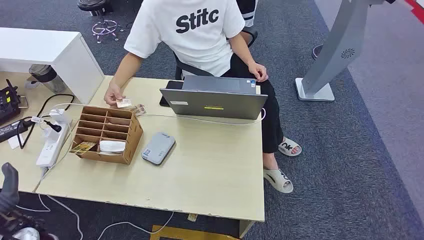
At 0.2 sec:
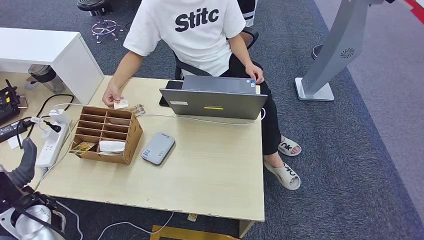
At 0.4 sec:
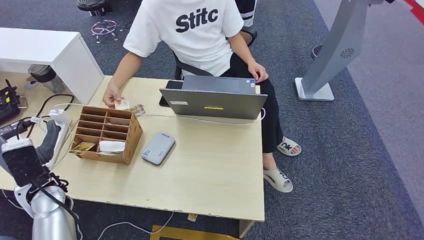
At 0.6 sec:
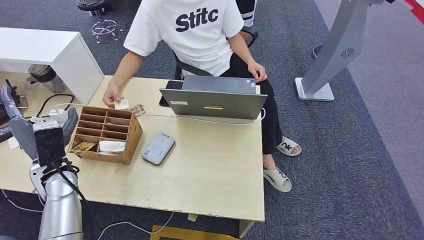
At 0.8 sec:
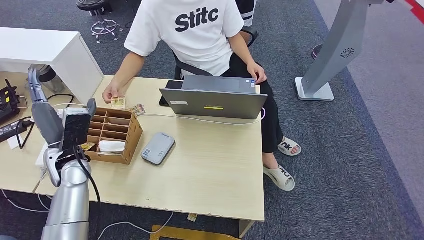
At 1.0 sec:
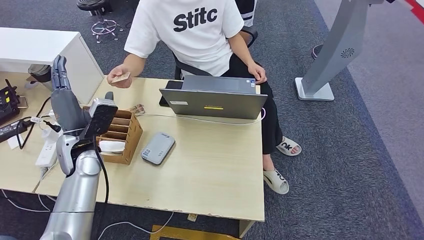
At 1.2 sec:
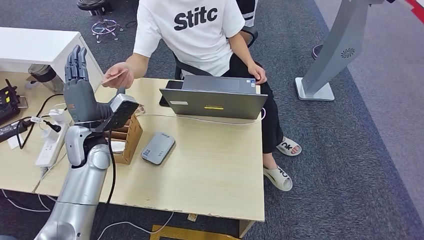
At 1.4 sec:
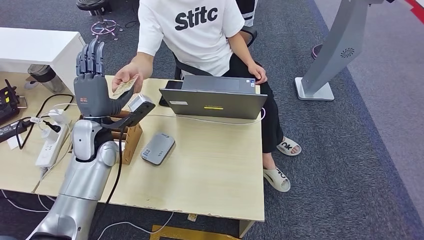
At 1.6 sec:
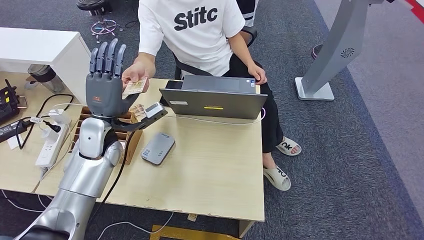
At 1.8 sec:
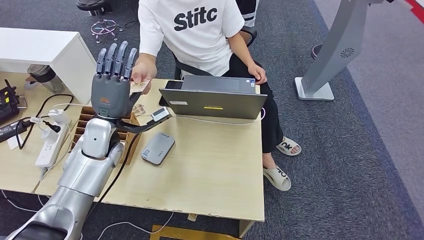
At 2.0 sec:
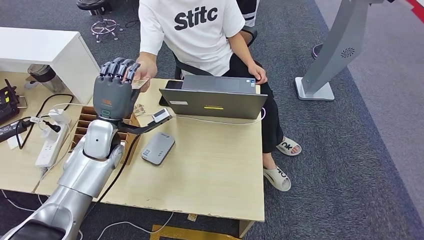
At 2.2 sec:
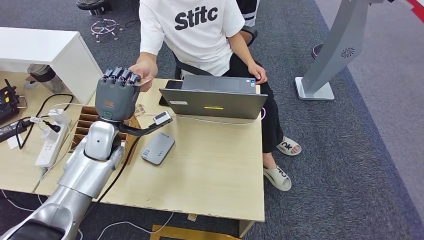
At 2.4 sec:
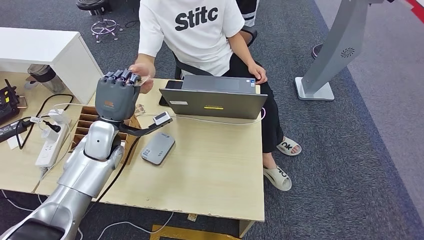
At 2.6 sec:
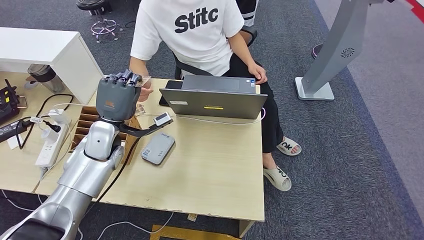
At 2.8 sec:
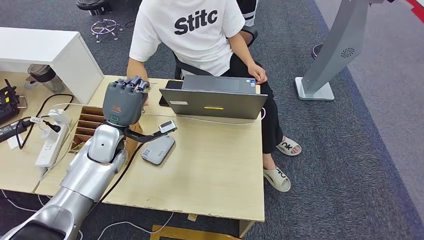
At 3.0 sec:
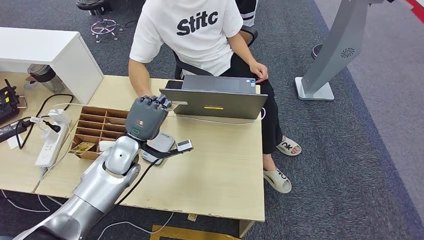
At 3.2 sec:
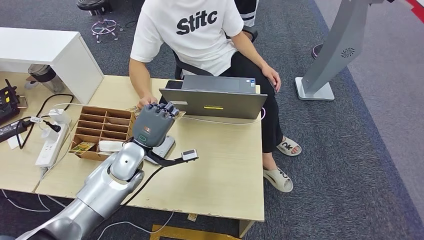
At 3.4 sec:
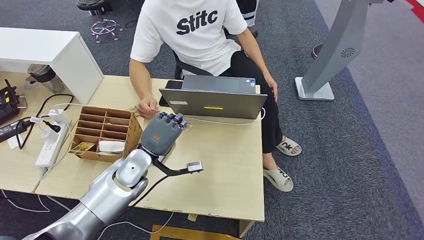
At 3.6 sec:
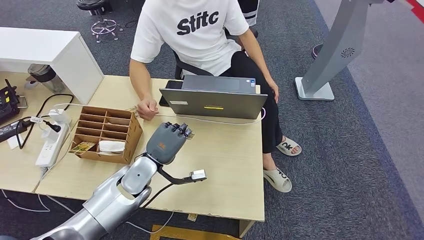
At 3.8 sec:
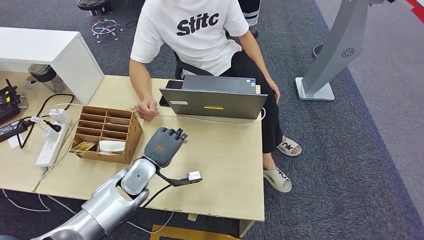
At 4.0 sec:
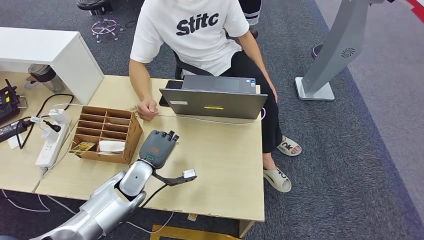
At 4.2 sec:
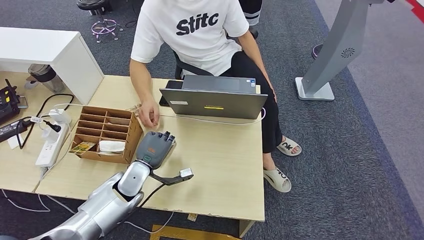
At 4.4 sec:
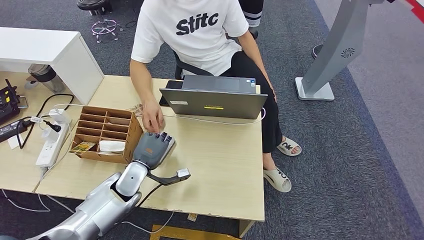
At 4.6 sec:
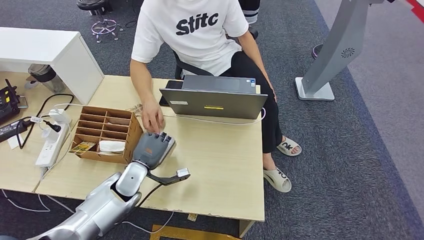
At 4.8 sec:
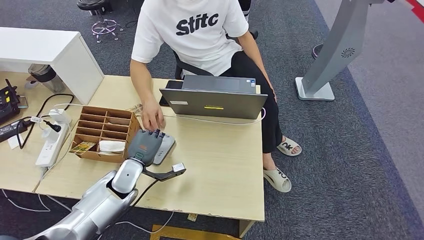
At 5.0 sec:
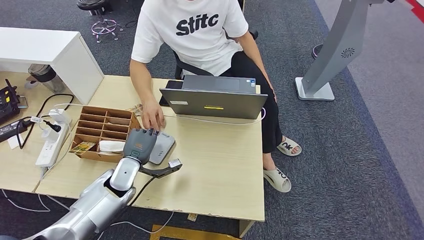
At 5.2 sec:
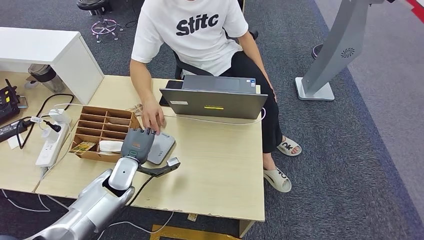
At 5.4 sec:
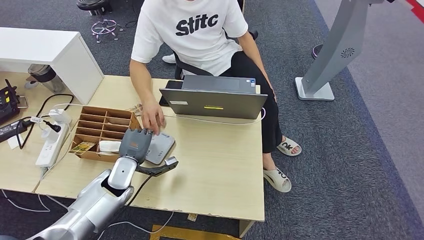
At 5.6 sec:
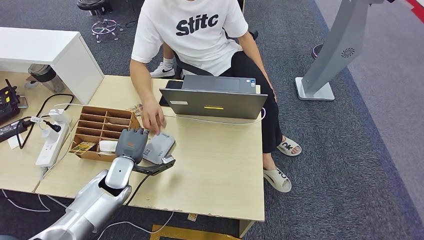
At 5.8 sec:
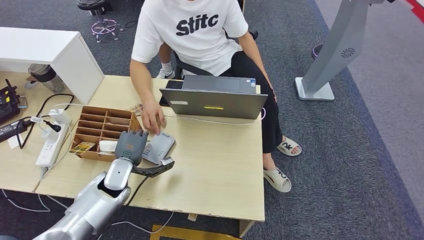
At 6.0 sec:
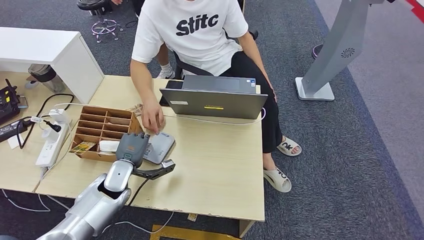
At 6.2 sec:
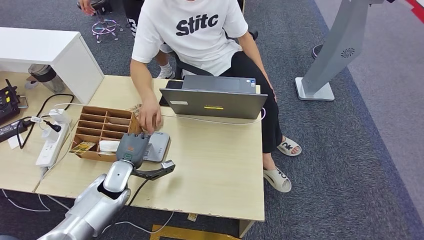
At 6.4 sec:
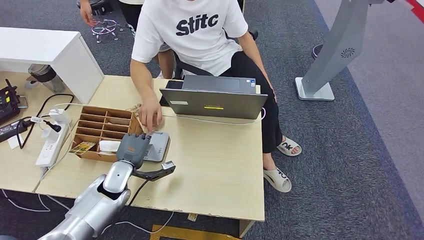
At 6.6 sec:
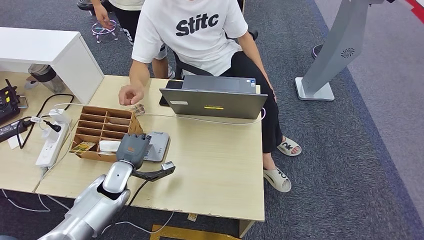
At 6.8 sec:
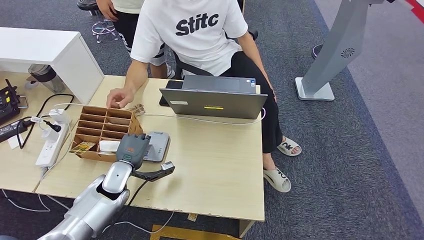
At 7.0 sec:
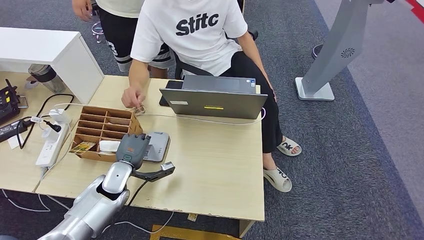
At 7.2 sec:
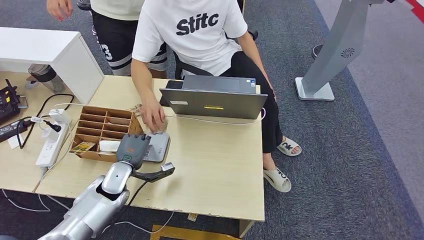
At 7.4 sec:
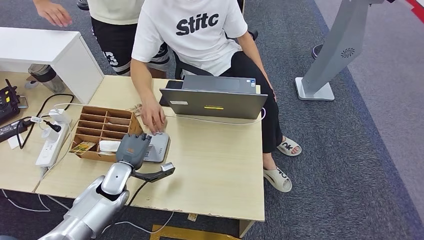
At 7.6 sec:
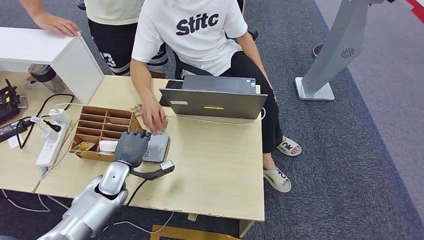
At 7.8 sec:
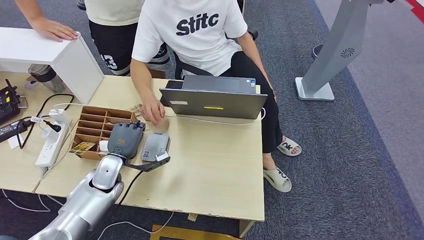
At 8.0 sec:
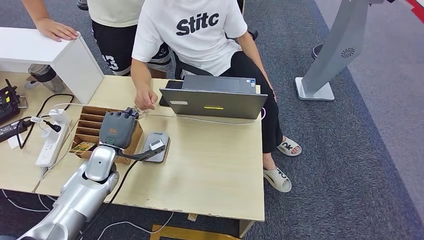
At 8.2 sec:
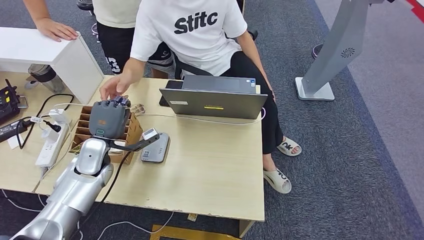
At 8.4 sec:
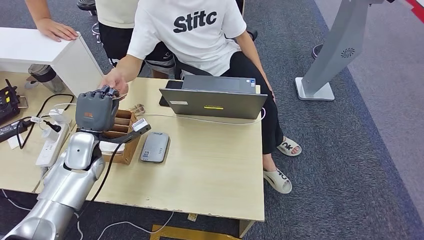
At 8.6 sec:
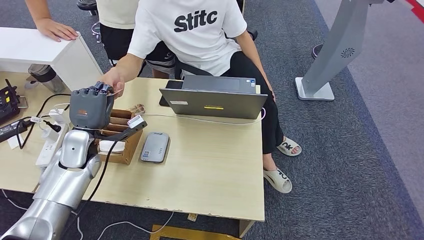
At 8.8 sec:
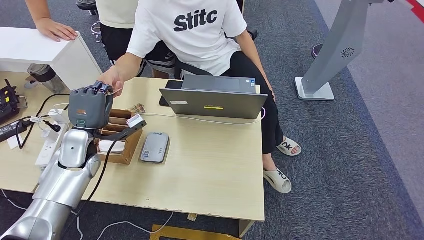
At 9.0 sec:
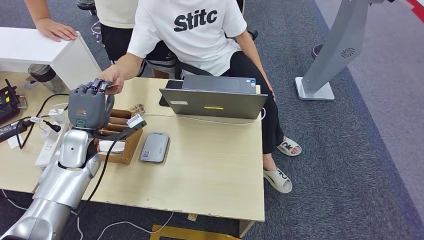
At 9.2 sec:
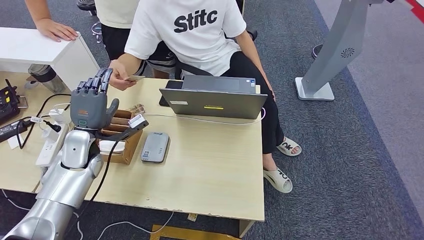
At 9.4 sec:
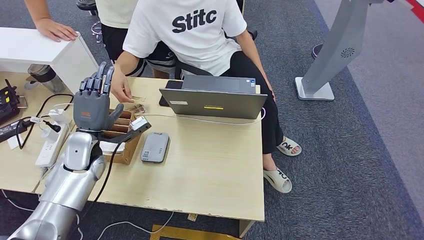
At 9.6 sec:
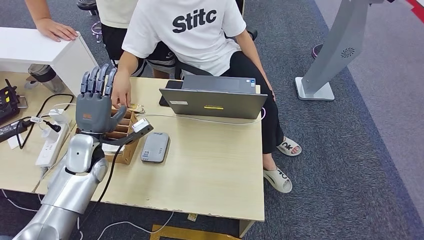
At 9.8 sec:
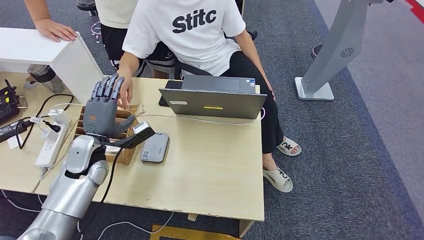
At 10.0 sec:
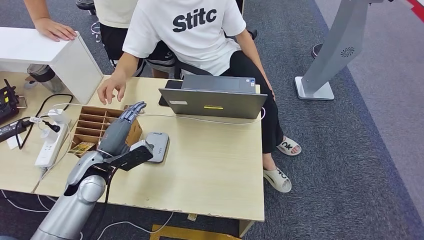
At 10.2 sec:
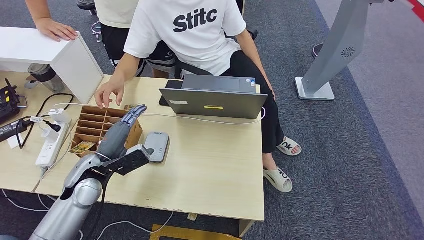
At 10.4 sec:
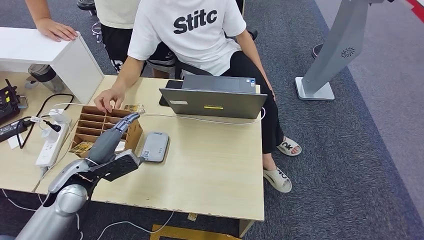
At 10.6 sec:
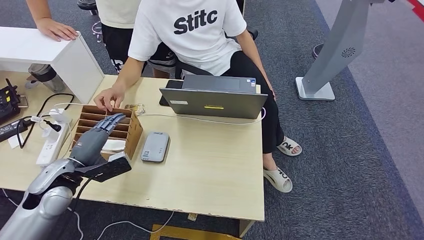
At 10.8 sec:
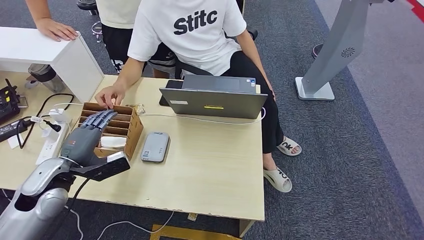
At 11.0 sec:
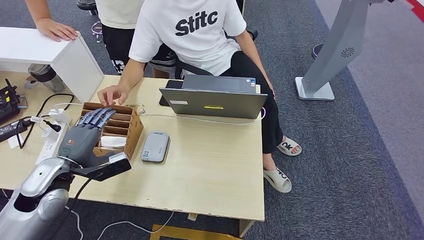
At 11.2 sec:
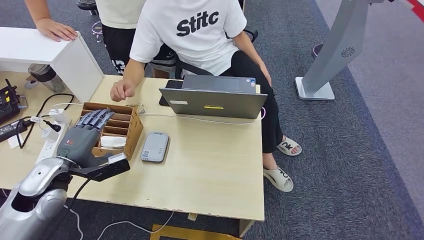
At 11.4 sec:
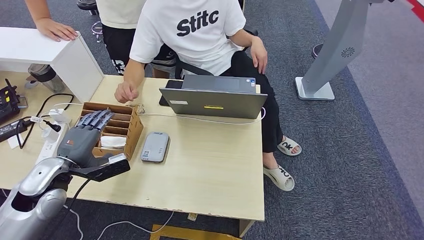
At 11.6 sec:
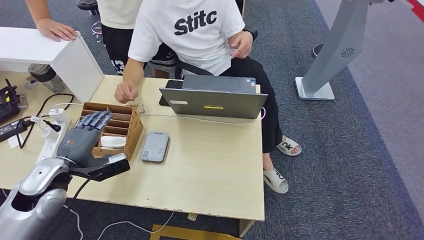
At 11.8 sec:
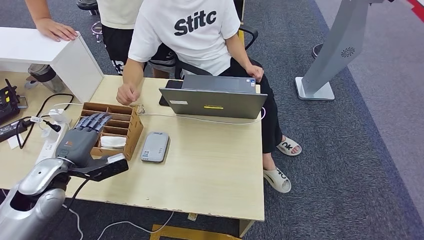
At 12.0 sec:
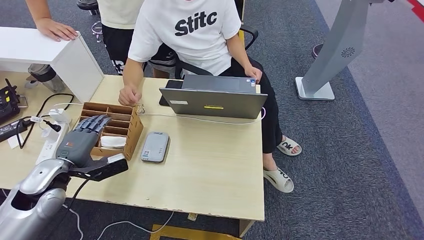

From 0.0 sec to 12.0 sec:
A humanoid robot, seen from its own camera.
Step, from 0.0 sec to 3.0 sec: Take the ID card from the person's hand.
Step, from 3.2 sec to 7.2 sec: Place the ID card on the card reader.
Step, from 7.4 sec to 9.2 sec: Hand the ID card to the person.
From 1.6 sec to 3.0 sec: The left hand goes about 5 cm downward.
From 3.0 sec to 4.4 sec: The left hand travels downward by some 10 cm.
From 4.4 sec to 7.6 sec: There are only small adjustments of the hands.
From 7.6 sec to 9.0 sec: The left hand shifts roughly 15 cm upward and to the left.
From 9.0 sec to 10.4 sec: The left hand is displaced backward by roughly 5 cm.
From 10.4 sec to 12.0 sec: The left hand is displaced to the left by approximately 5 cm.

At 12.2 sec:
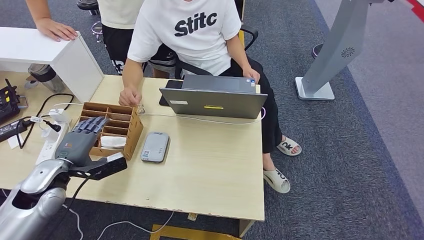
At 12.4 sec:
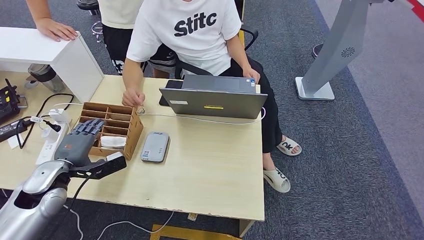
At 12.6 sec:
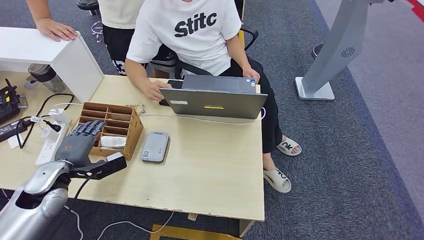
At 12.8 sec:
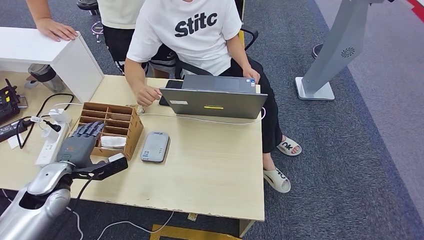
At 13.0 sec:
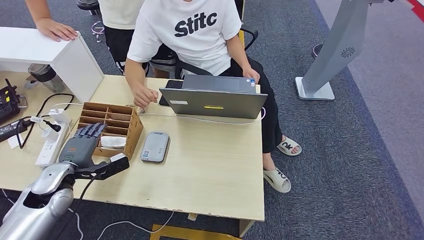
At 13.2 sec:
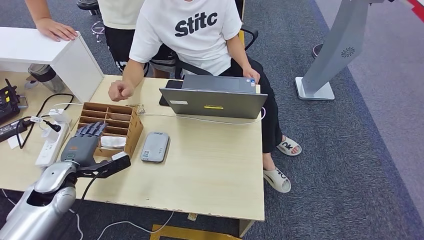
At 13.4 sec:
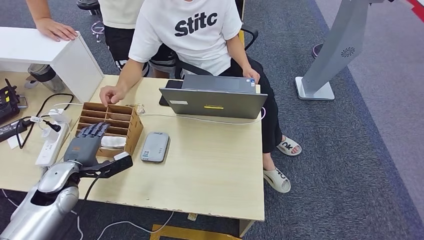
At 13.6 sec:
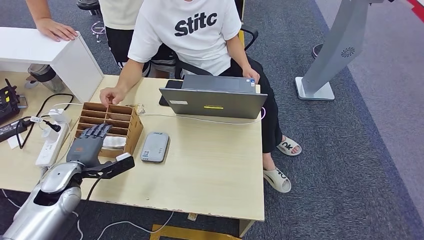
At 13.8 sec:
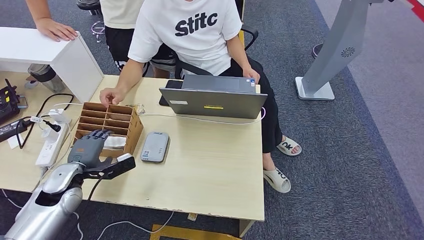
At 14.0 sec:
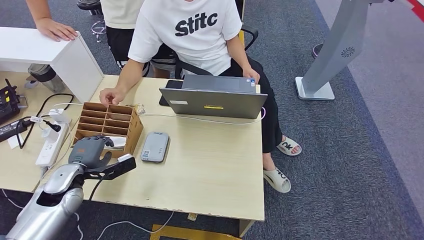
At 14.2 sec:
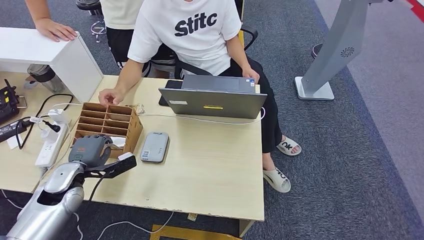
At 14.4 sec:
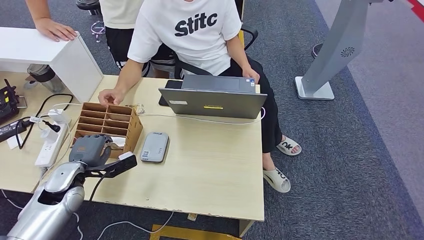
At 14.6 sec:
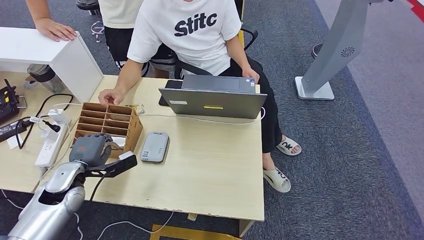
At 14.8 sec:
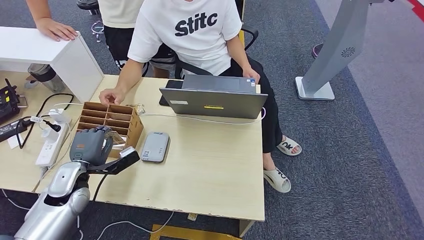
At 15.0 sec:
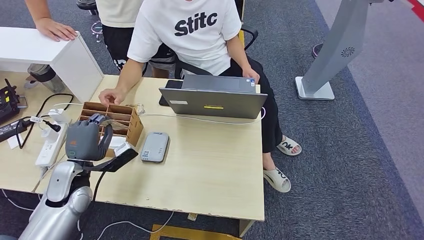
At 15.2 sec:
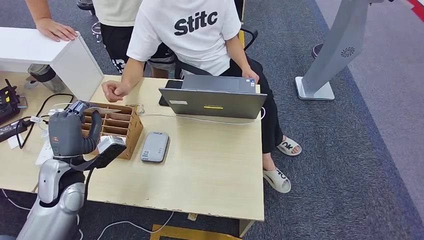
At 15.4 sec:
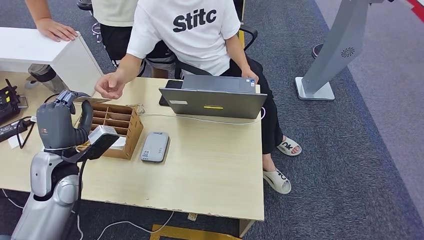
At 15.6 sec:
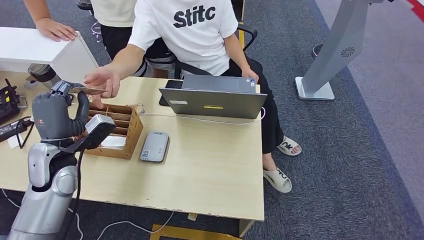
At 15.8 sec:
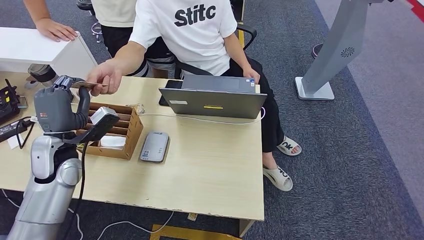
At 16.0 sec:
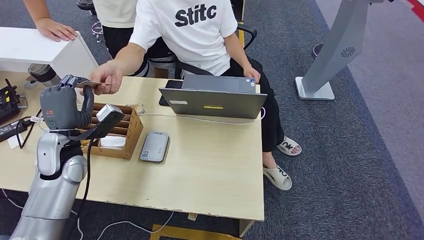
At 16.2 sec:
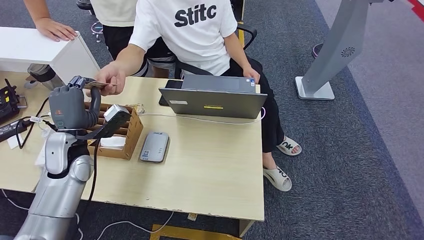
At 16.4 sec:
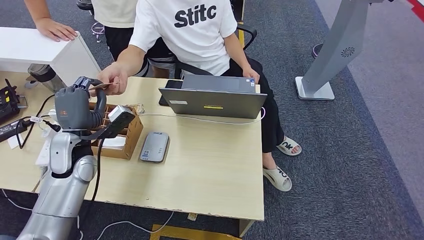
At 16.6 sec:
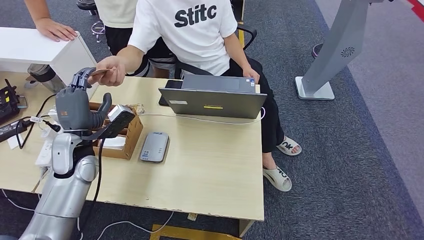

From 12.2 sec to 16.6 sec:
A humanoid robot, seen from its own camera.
Step, from 12.2 sec to 15.0 sec: Pick up the room key from the key card box.
Step, from 15.2 sec to 16.6 sec: Hand the room key to the person.
From 12.2 sec to 13.6 sec: The hands stay close to where they were, moving slightly.
From 13.6 sec to 15.2 sec: The left hand goes about 5 cm upward.
From 15.2 sec to 16.6 sec: The left hand is displaced forward by approximately 5 cm.
